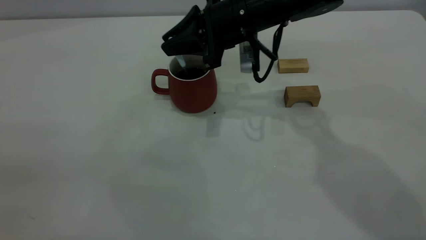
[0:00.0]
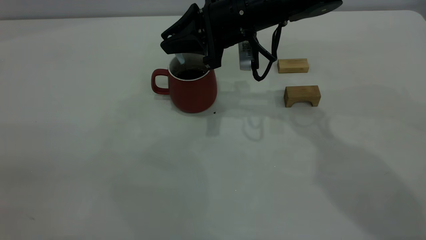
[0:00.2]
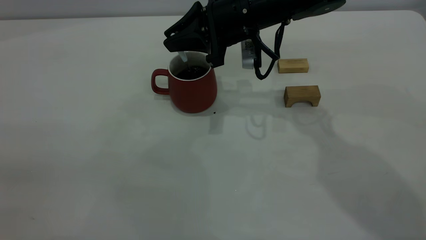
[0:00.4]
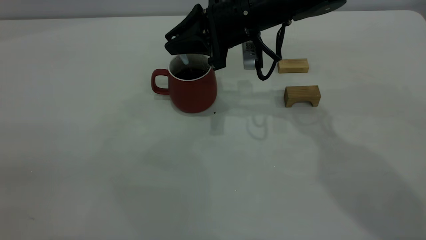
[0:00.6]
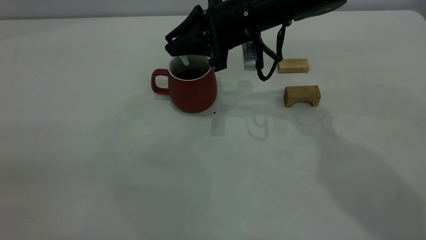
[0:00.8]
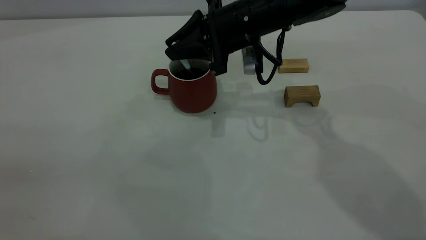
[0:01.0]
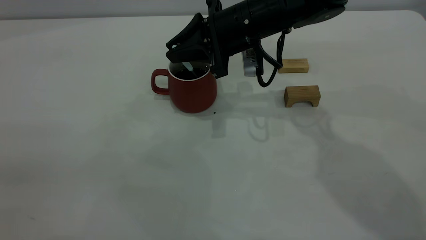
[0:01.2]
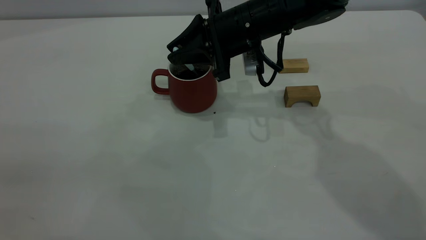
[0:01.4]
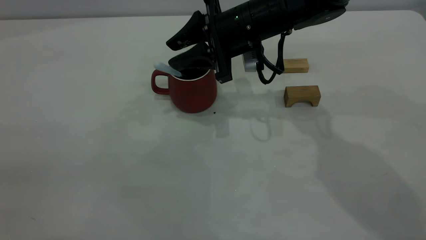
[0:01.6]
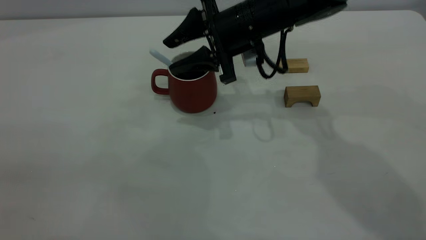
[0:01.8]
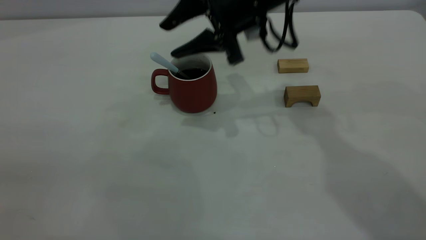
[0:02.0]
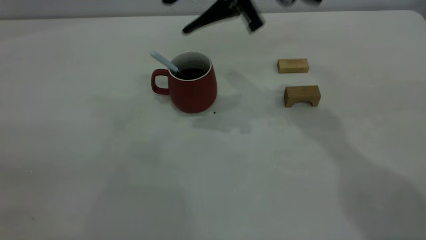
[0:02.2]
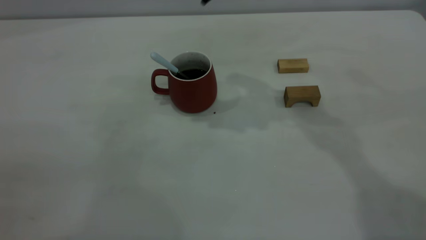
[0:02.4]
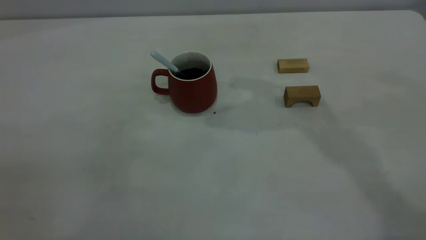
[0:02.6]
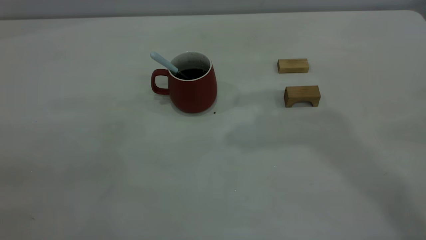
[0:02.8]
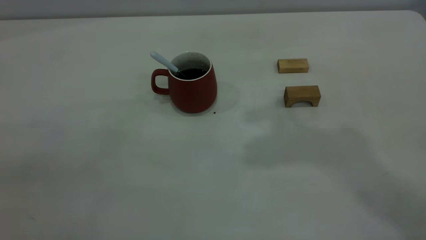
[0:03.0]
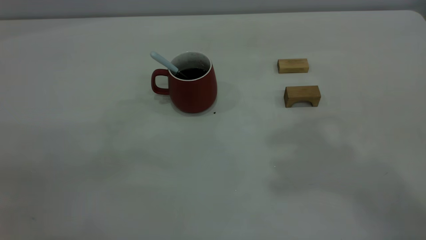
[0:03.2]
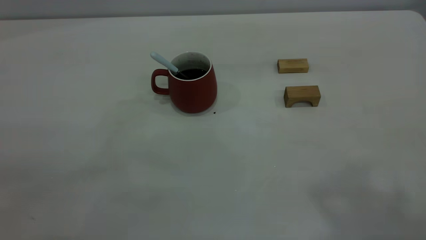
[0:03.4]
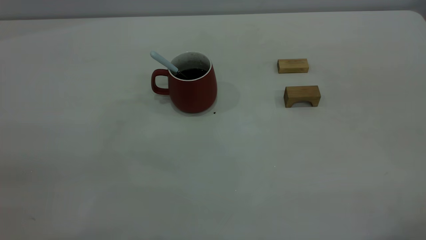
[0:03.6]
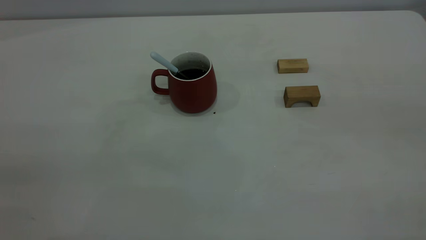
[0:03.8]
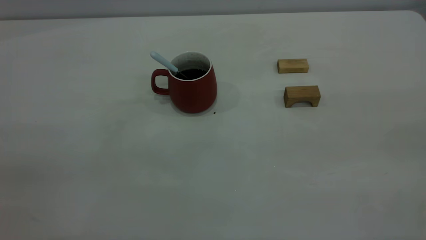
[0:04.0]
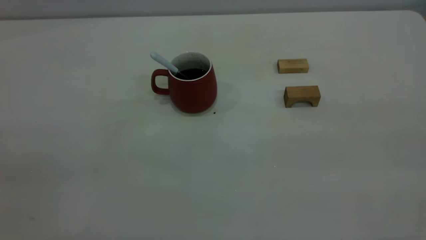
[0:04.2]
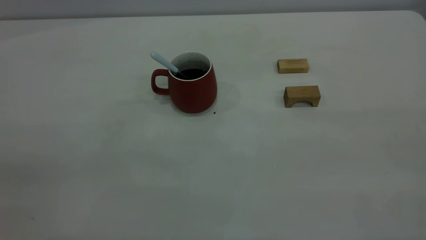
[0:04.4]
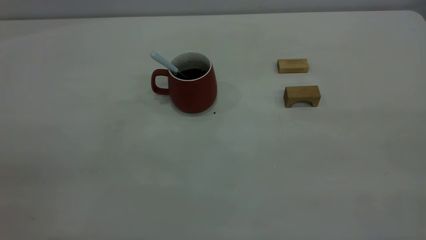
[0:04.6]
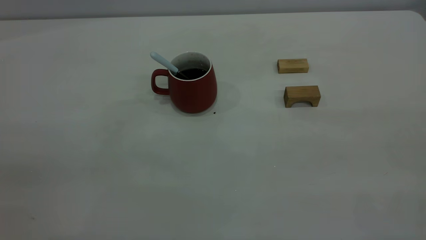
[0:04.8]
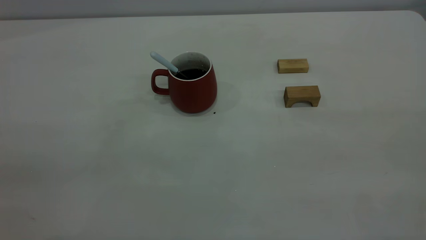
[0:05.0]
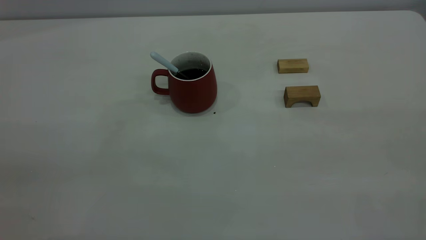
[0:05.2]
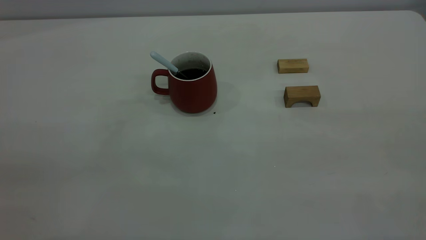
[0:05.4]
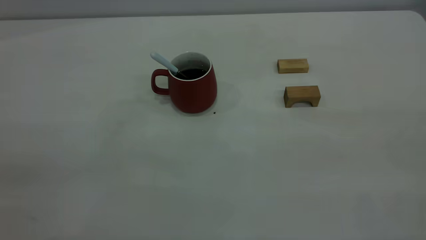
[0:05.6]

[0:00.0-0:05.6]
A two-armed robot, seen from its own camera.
0:00.0 to 0:01.4: The grippers stay close to where they were, moving slightly.
0:01.4 to 0:02.8: The right gripper goes approximately 30 cm upward, and opens up.
